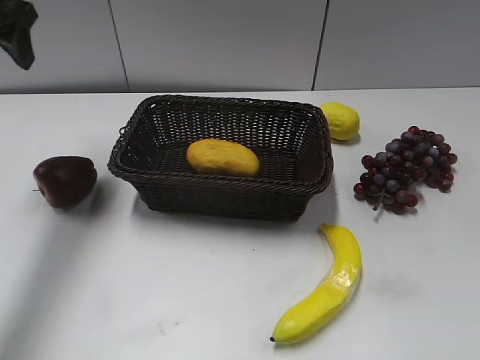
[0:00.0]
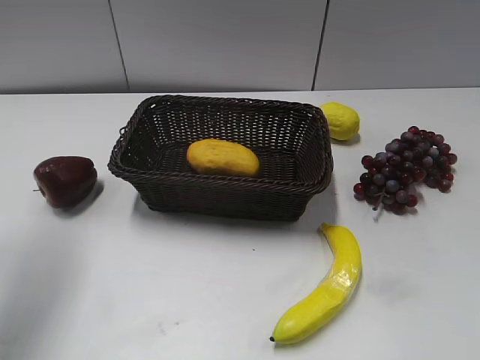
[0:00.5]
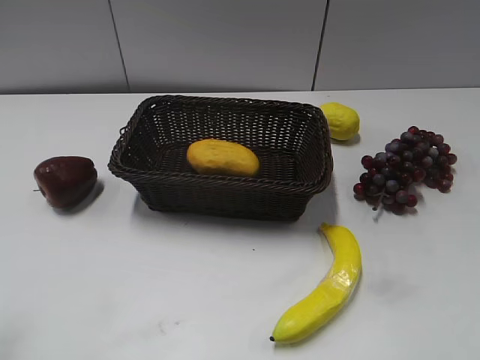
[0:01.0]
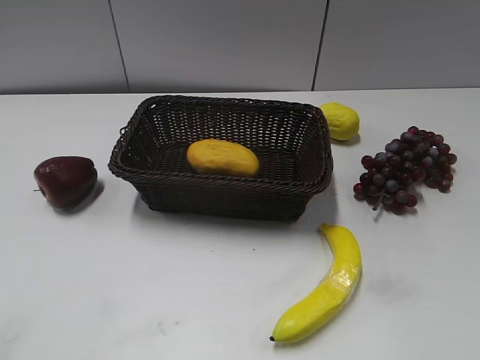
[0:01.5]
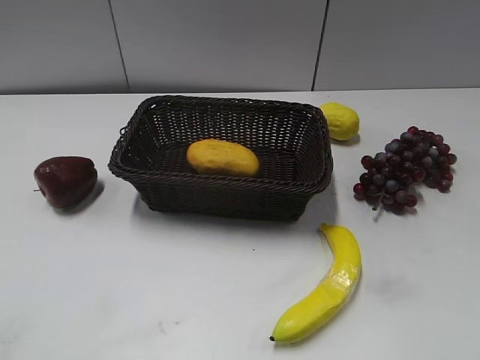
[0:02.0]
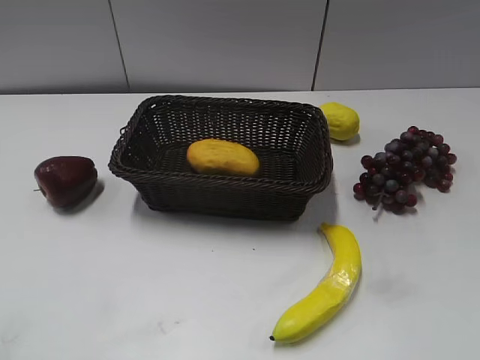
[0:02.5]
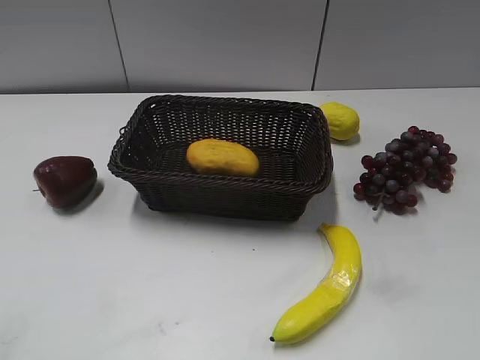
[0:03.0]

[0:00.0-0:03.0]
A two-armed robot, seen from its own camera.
0:00.0 to 0:01.5: The left gripper is displaced backward by approximately 35 cm.

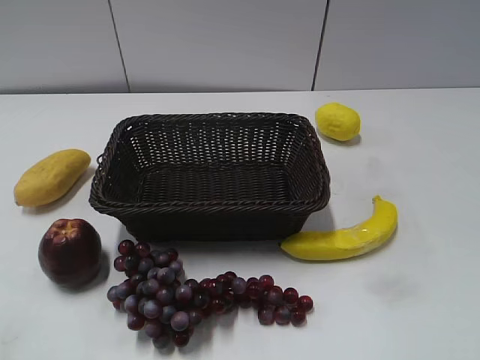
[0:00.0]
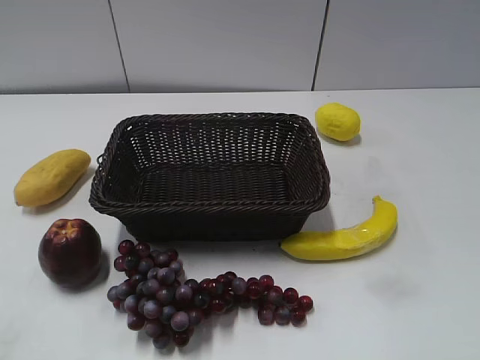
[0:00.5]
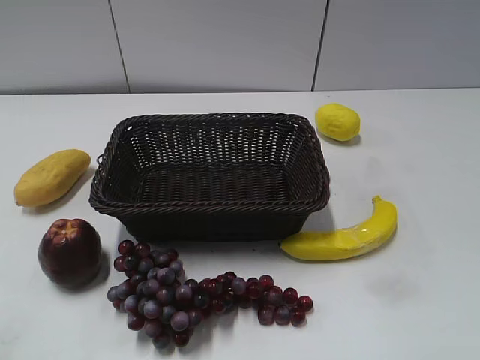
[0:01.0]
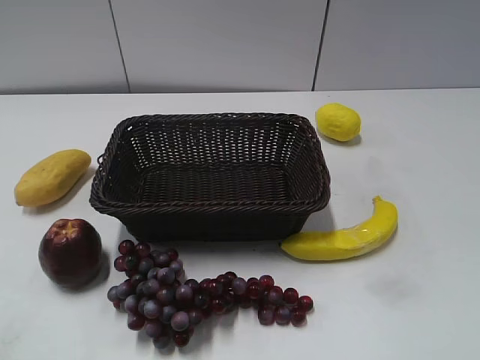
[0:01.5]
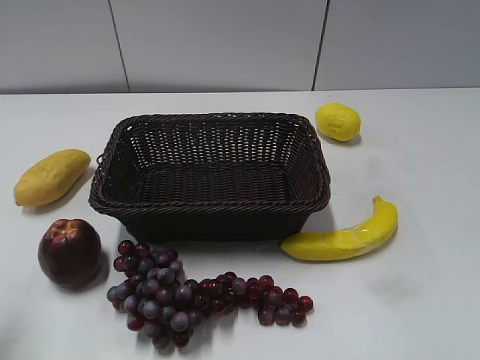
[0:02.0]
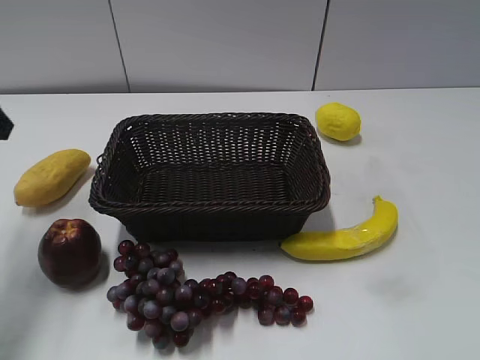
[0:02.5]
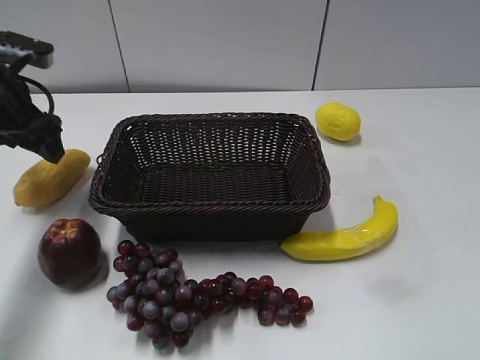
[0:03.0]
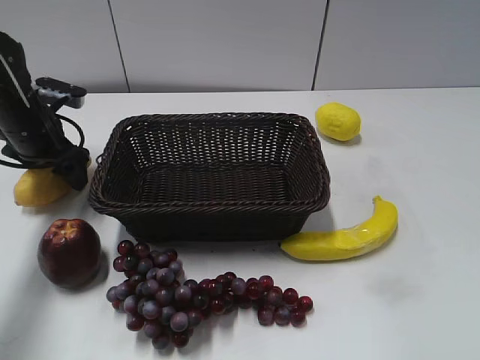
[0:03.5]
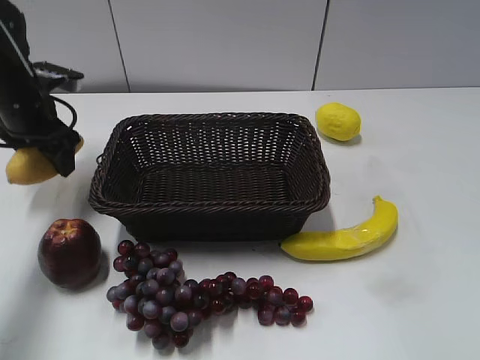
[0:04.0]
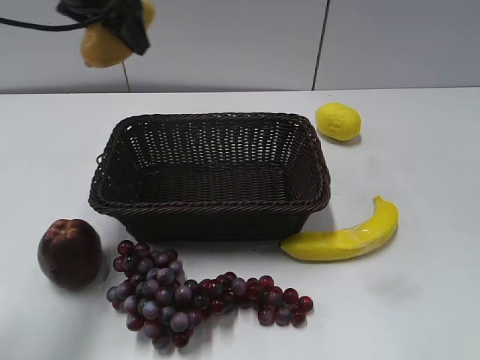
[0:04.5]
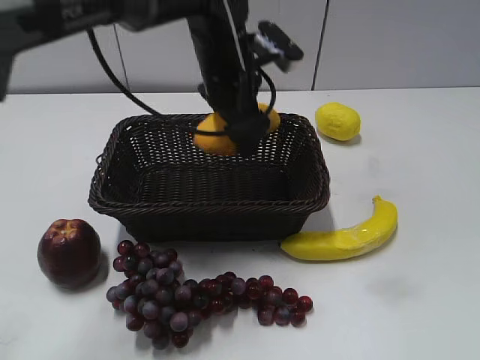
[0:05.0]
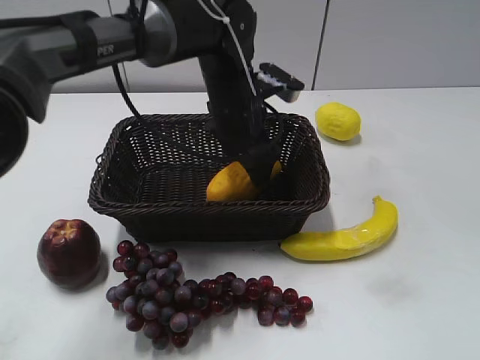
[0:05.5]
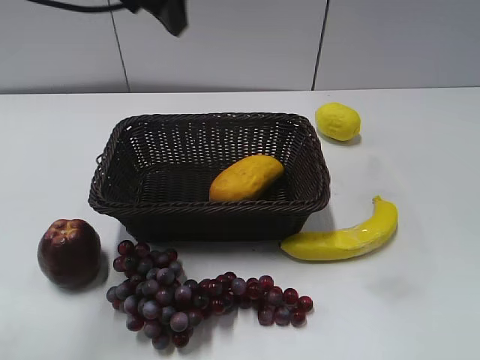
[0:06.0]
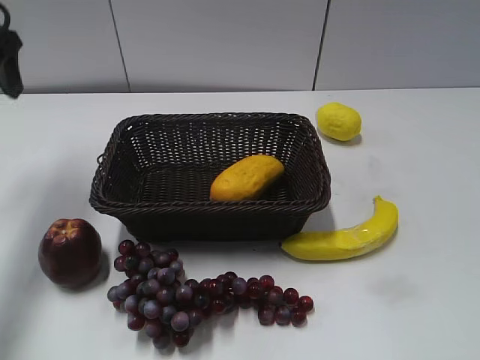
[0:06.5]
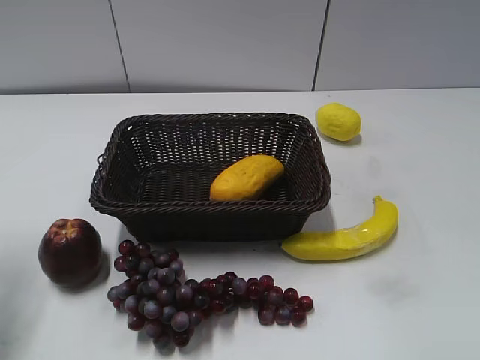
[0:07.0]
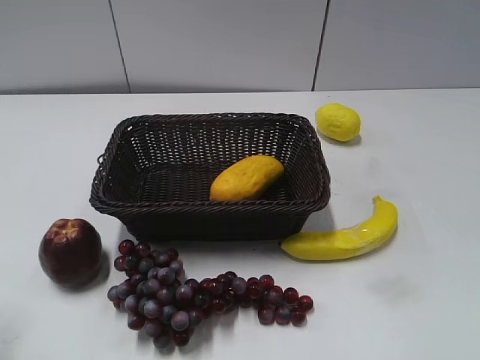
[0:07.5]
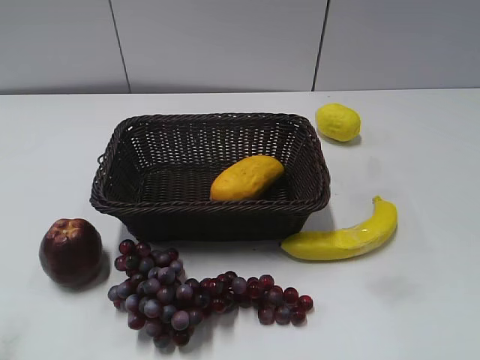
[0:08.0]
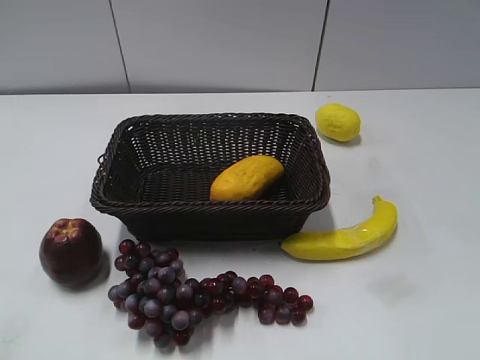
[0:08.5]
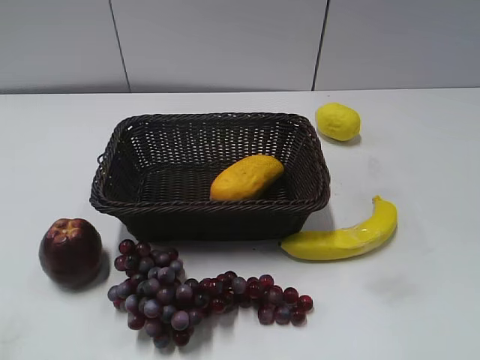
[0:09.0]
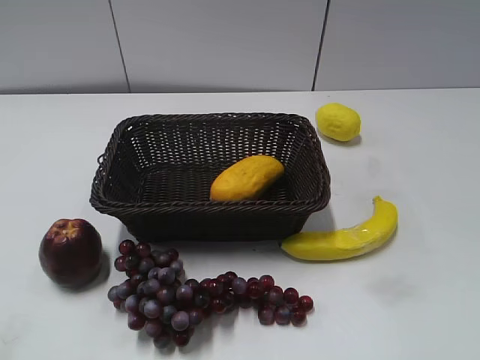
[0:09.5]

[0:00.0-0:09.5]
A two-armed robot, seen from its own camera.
Step, 0:02.5 to 0:03.5: Grasp the mango with left gripper.
Step, 0:04.0 to 0:05.5: Place the mango in the basket with left gripper.
0:02.0 to 0:04.0: The left gripper is displaced forward and downward by some 30 cm.
0:04.0 to 0:05.5: The left gripper shifts about 25 cm to the right.
0:05.5 to 0:07.5: The left gripper heads to the left and backward, covering about 40 cm.
